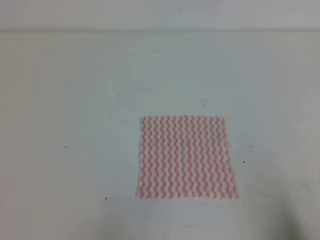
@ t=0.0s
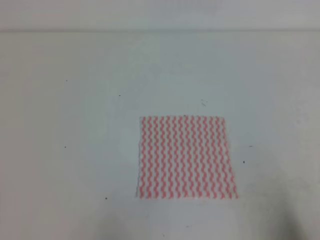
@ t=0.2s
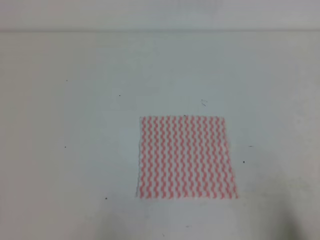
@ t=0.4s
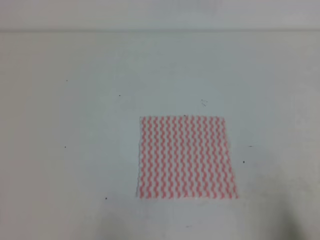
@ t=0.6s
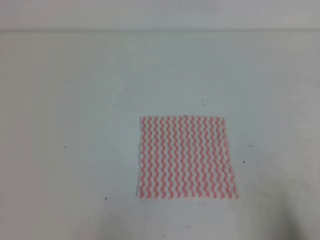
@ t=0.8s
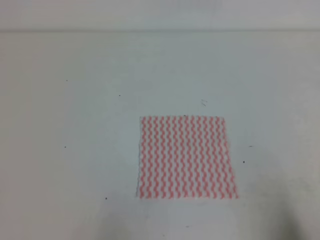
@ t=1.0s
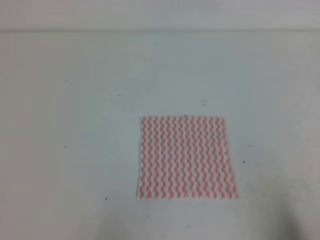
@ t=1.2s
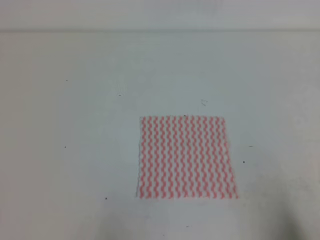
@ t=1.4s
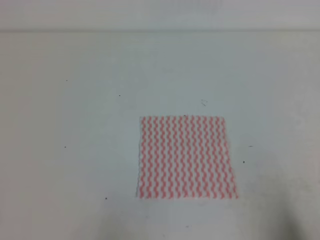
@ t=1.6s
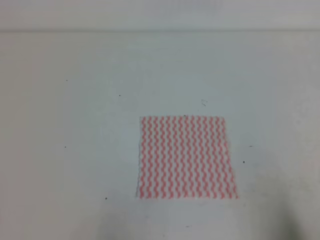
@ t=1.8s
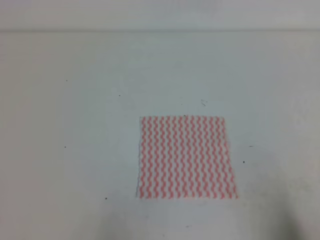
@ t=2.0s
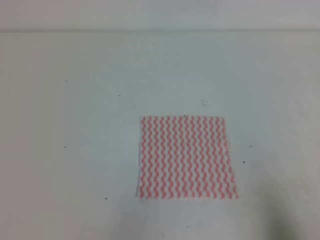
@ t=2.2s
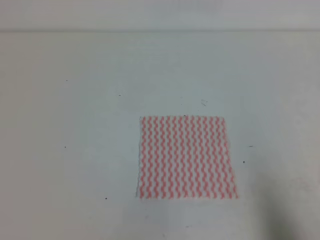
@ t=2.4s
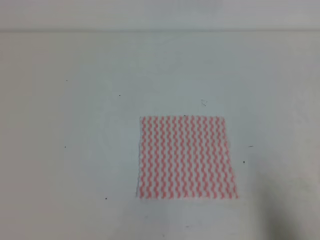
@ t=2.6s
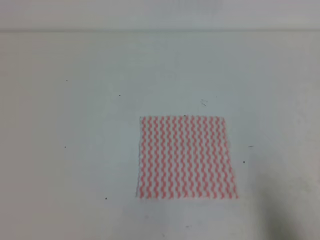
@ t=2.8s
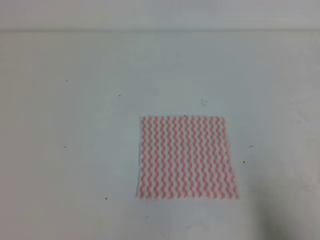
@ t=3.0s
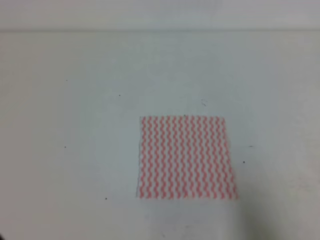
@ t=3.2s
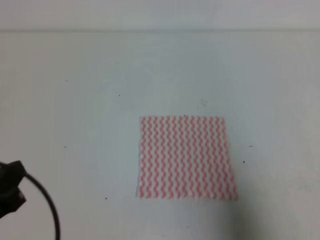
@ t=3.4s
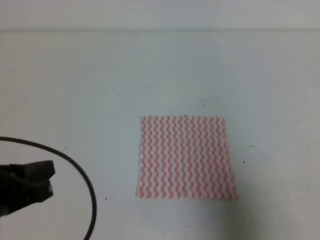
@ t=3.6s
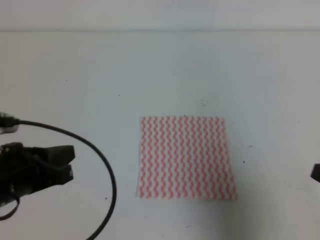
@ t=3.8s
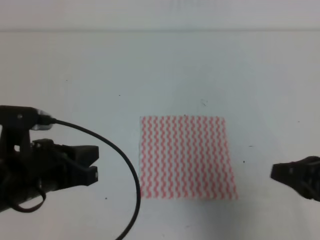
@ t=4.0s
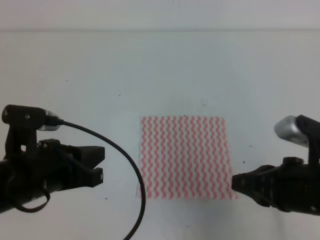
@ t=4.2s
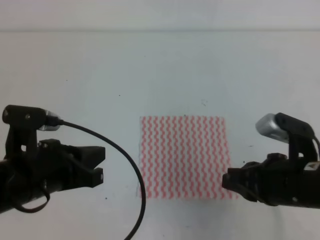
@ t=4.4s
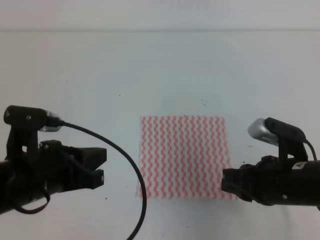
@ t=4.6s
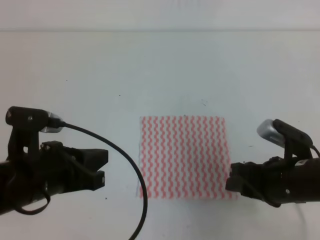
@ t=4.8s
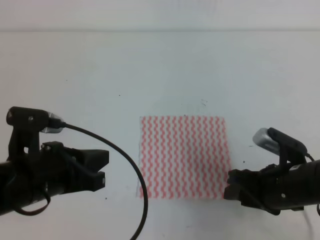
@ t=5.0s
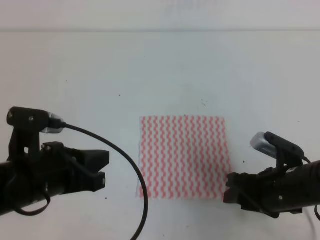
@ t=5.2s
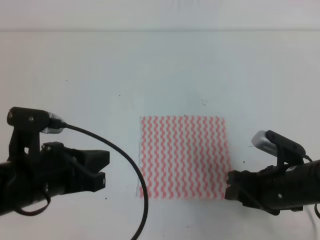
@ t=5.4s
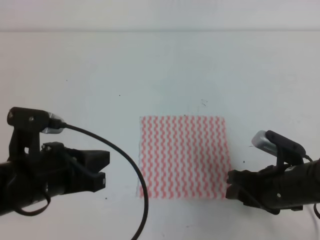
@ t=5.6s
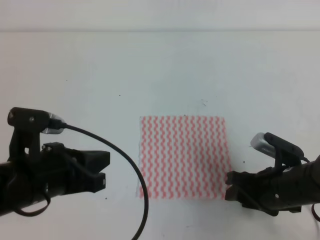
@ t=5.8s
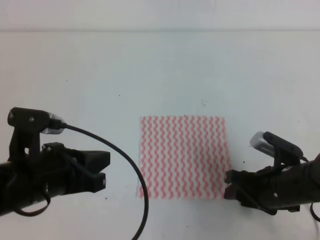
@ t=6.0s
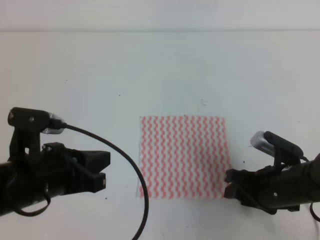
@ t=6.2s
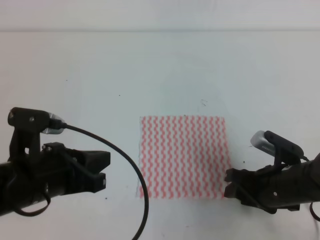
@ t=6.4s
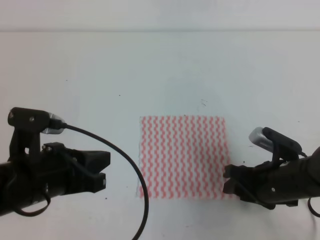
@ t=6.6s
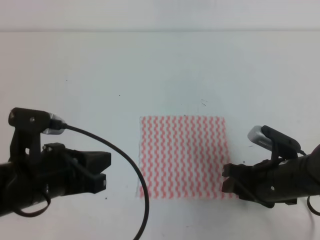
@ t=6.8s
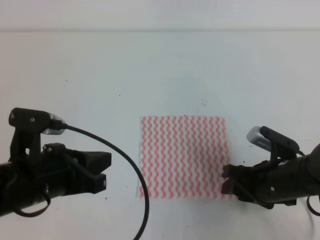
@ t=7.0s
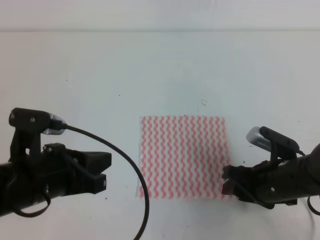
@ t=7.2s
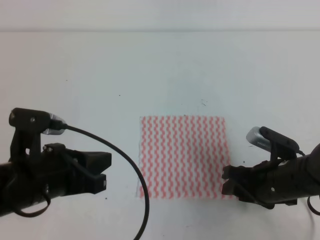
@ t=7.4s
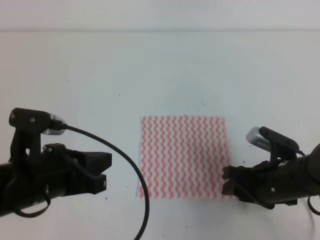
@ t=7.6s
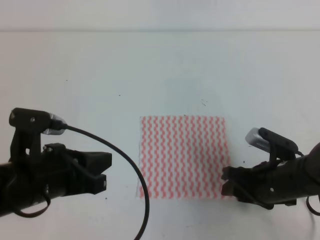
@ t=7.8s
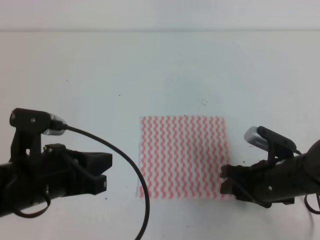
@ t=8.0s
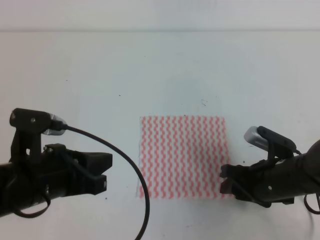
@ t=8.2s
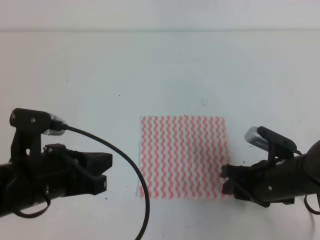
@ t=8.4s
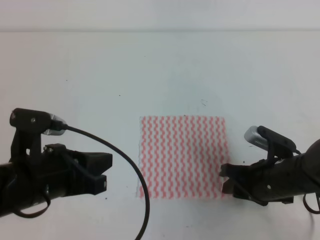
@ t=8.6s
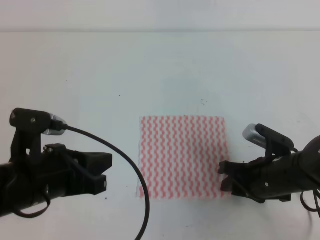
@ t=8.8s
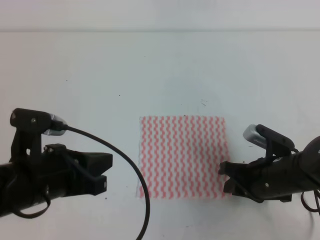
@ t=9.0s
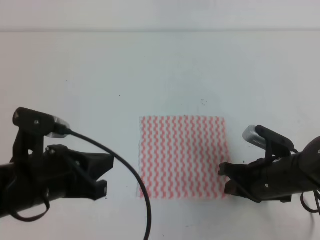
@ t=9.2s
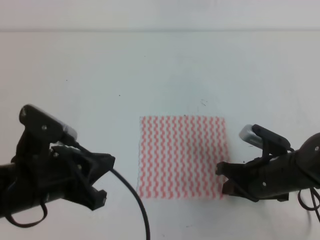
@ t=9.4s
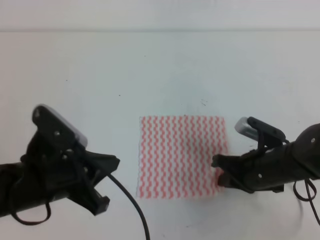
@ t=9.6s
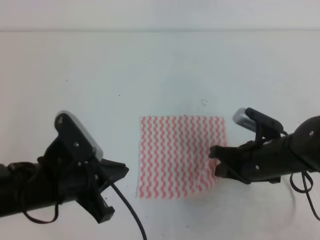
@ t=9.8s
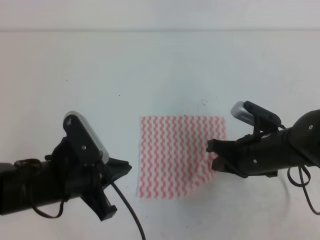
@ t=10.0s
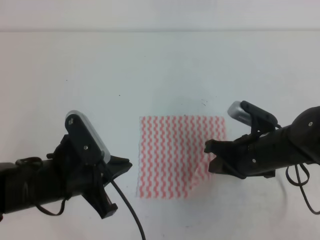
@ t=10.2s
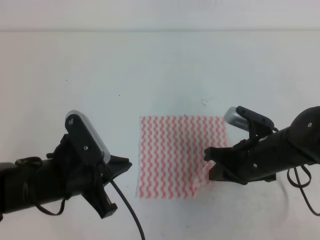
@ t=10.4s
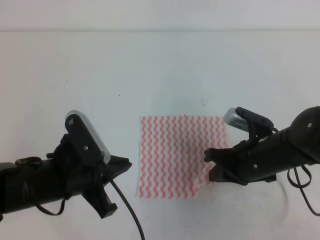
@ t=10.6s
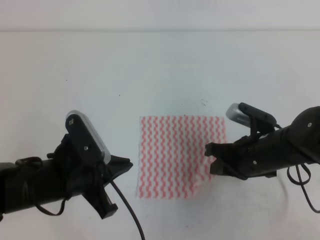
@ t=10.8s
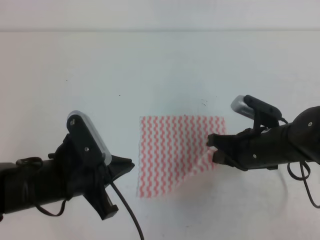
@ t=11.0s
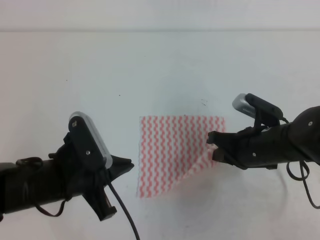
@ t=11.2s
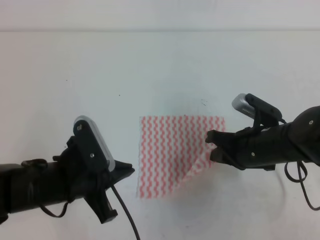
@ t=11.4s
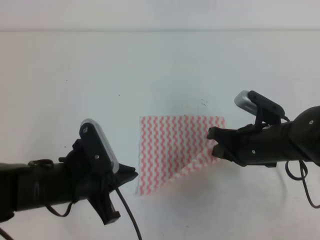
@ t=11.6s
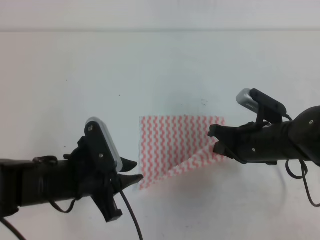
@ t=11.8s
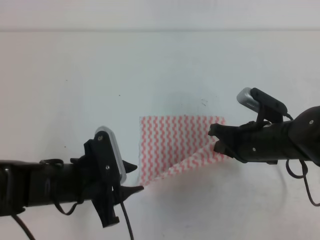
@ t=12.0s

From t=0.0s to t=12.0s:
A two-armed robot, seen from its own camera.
From t=0.0s to t=1.6s: Both grippers stay about where they are.
From t=3.0s to t=4.4s: The left gripper is displaced forward and to the right by roughly 15 cm. The right gripper goes approximately 20 cm to the left and forward.
From t=4.4s to t=6.0s: The right gripper goes some 10 cm downward, and opens.
From t=6.0s to t=7.6s: The two grippers keep their place.
From t=7.6s to t=9.0s: The right gripper closes its fingers.
From t=9.0s to t=10.4s: The right gripper shifts by about 5 cm, while the left gripper changes place by some 5 cm.
From t=10.4s to t=12.0s: The left gripper opens.

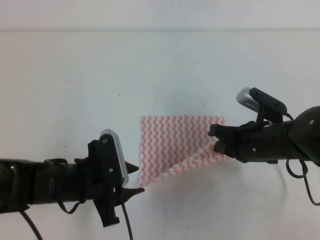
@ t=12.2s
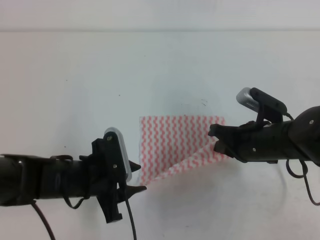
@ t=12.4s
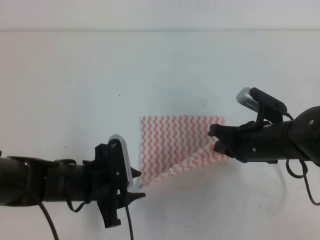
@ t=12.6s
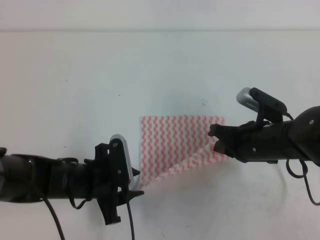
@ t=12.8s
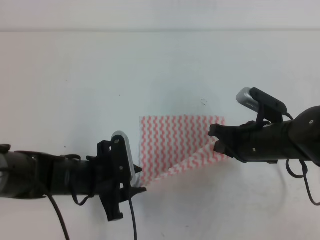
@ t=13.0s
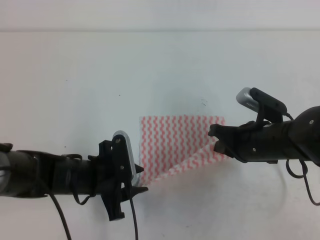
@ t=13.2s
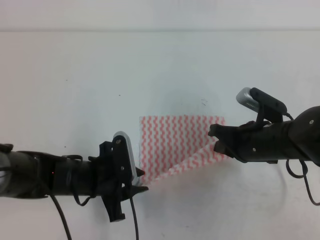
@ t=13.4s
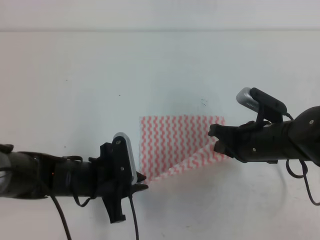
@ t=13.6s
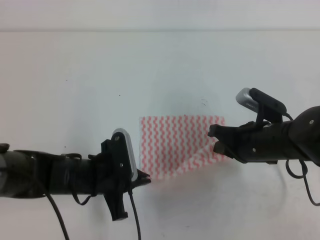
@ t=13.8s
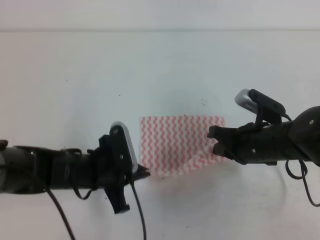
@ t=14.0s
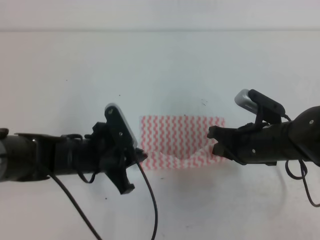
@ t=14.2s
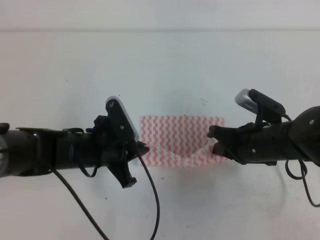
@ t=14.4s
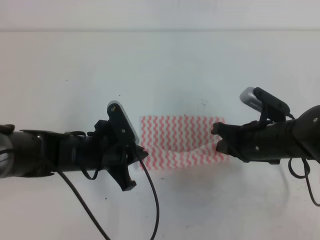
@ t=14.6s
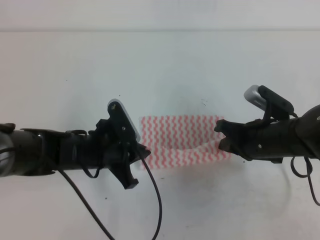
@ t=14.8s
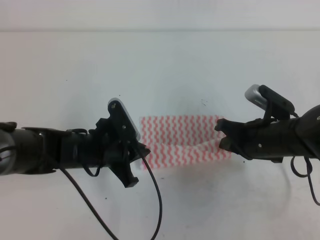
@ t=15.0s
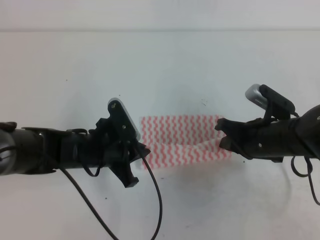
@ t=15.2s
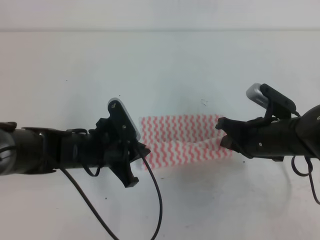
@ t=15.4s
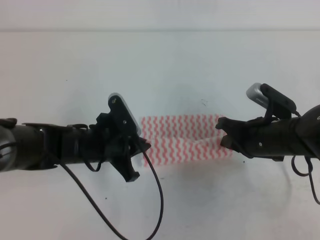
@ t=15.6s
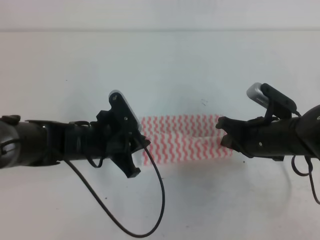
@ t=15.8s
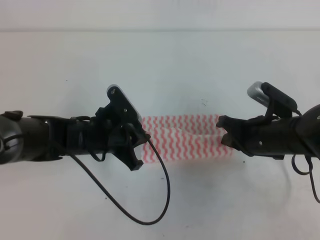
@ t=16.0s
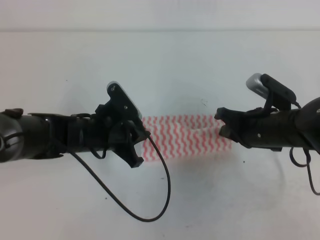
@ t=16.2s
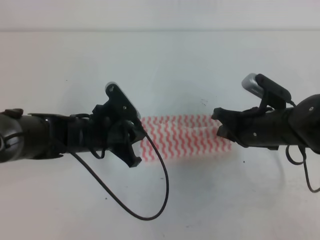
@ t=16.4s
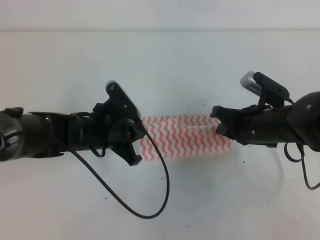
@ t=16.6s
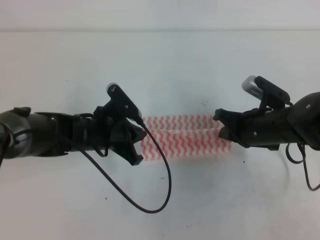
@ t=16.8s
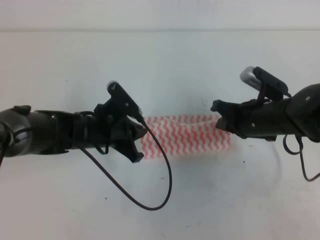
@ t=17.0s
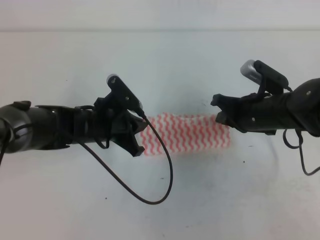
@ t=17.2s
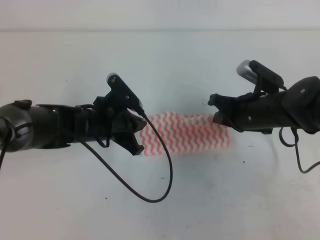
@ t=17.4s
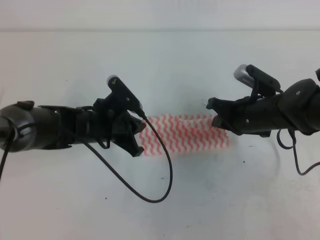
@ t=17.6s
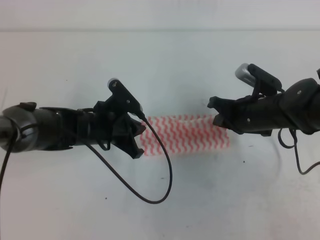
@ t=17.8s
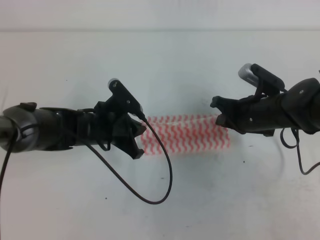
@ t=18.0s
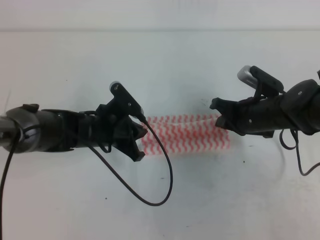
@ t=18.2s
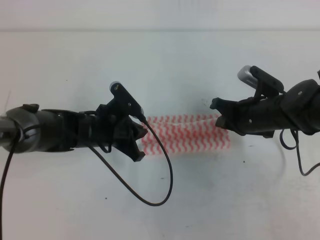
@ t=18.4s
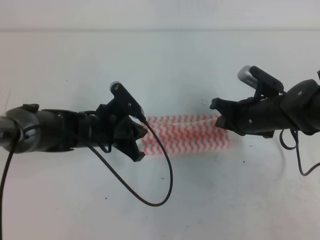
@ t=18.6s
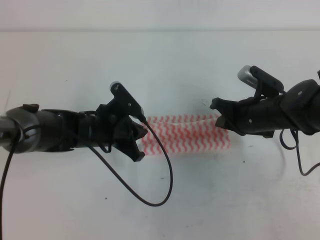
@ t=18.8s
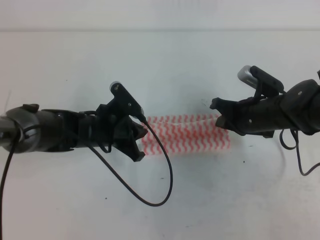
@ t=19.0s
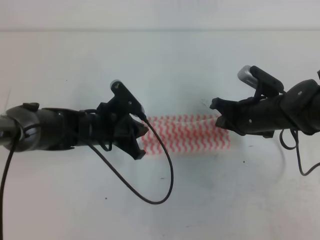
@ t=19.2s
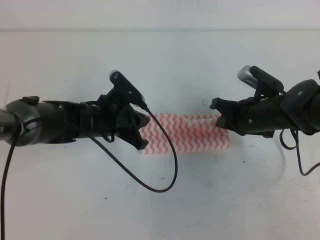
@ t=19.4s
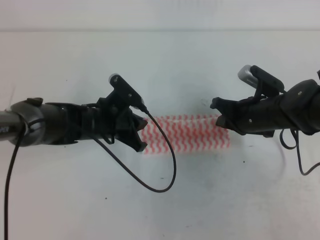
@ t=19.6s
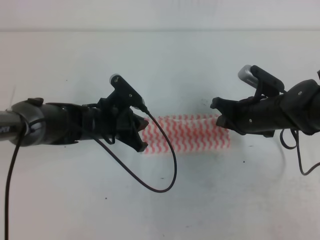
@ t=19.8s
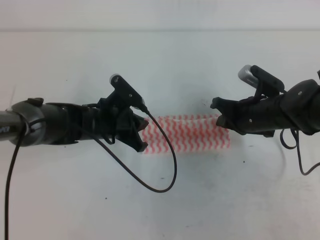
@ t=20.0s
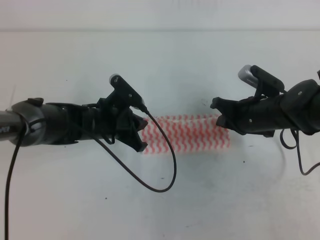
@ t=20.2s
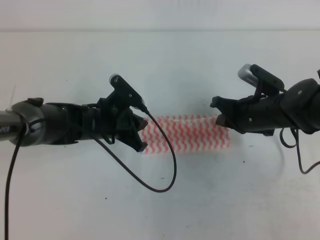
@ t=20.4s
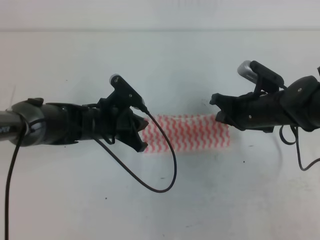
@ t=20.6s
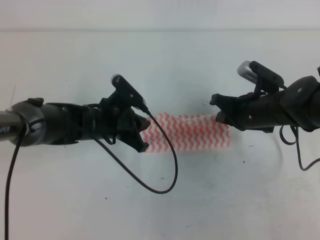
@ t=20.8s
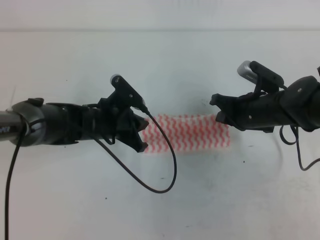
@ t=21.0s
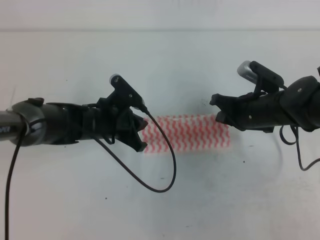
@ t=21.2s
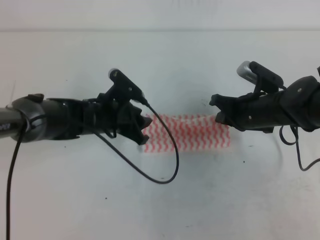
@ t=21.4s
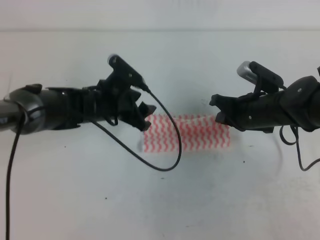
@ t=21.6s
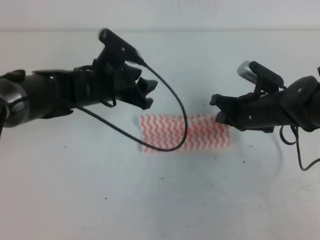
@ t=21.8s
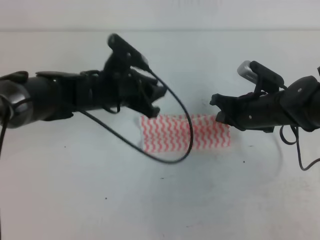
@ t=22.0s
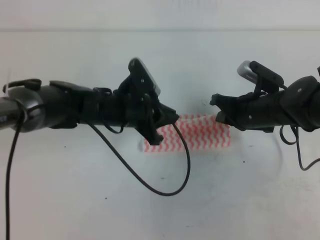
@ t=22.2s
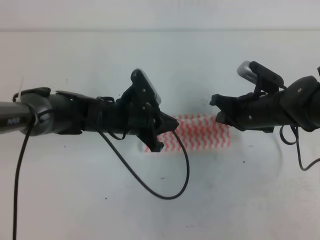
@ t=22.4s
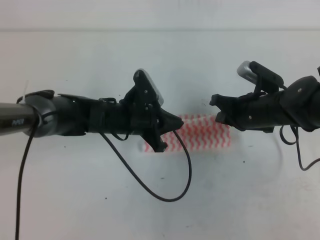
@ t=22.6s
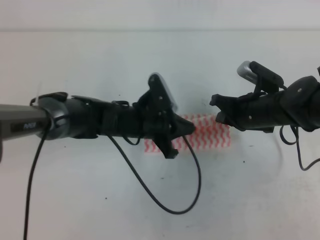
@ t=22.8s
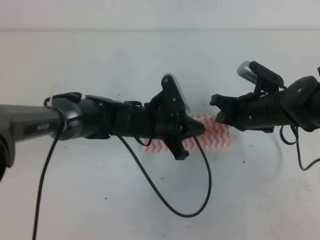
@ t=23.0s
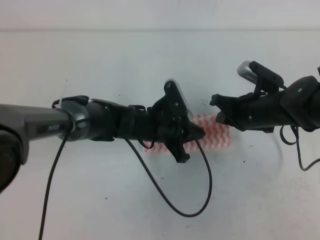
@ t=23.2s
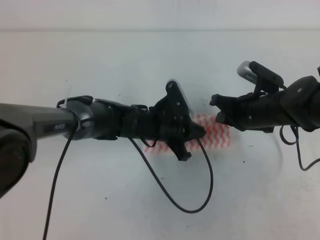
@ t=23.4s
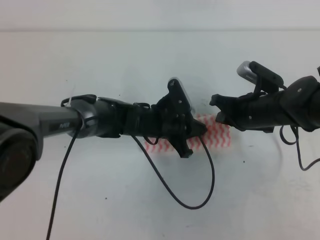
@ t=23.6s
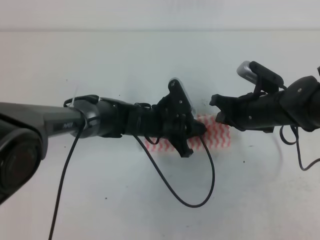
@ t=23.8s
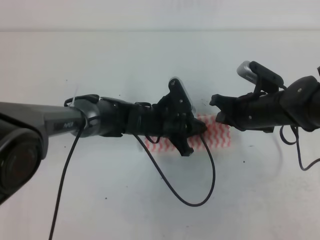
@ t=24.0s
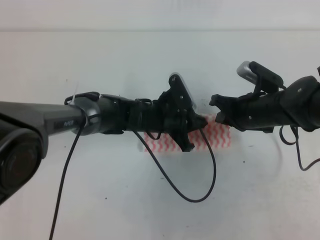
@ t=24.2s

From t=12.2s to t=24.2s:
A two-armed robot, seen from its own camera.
From t=12.2s to t=13.8s: The left gripper closes its fingers.
From t=13.8s to t=15.2s: The grippers make only small movements.
From t=15.2s to t=18.2s: The grippers make only small movements.
From t=18.2s to t=19.8s: There are only small adjustments of the grippers.
From t=19.8s to t=21.2s: Neither gripper changes place.
From t=21.2s to t=22.6s: The left gripper opens and closes again.
From t=22.6s to t=24.2s: The left gripper shifts some 5 cm to the right.
